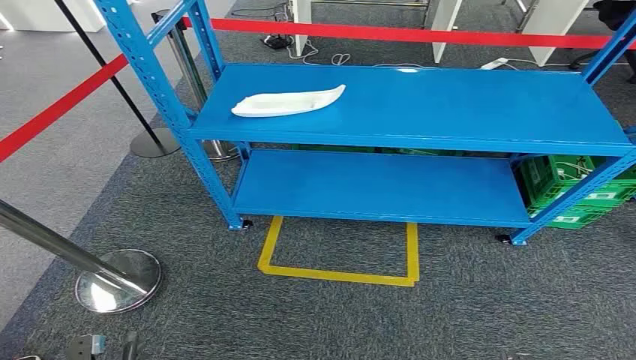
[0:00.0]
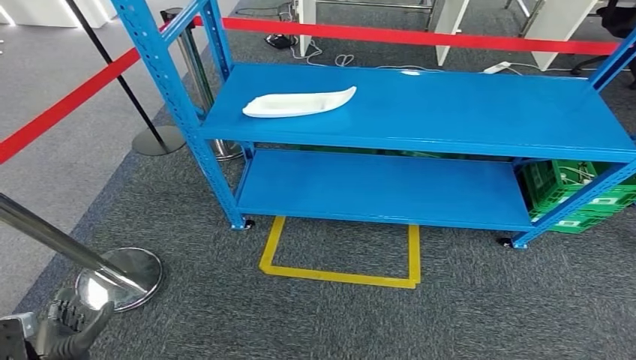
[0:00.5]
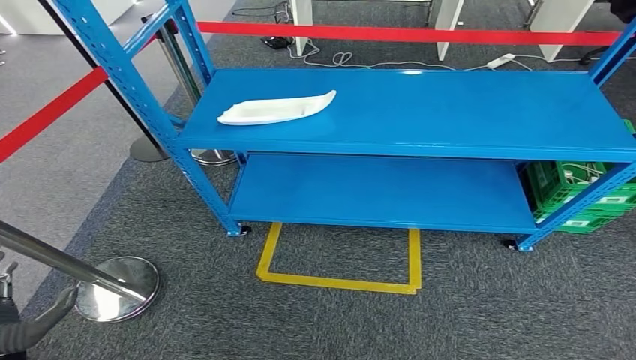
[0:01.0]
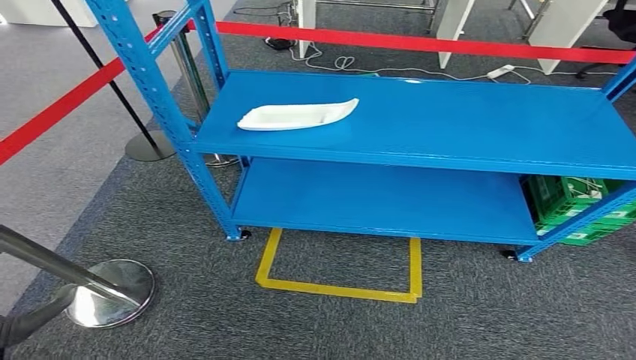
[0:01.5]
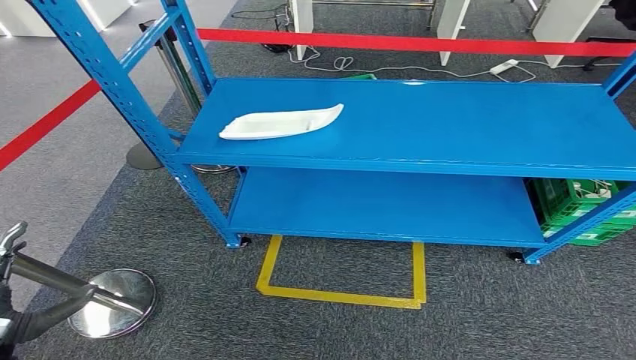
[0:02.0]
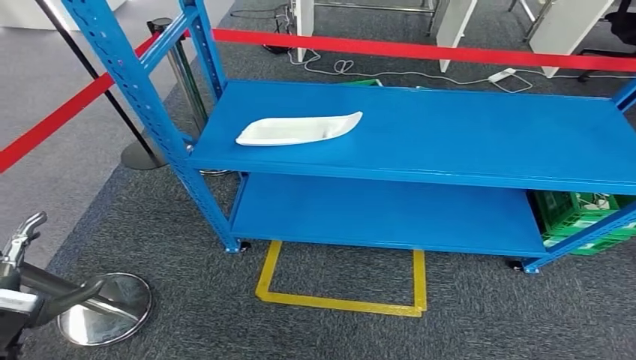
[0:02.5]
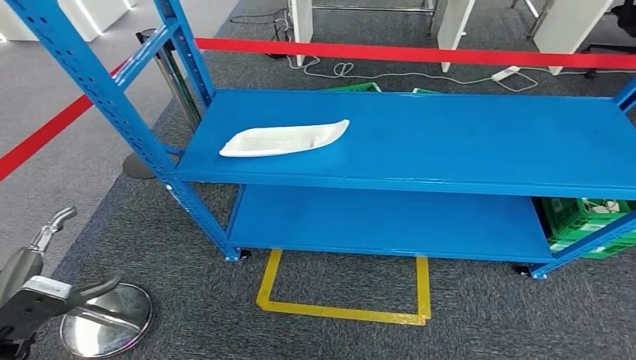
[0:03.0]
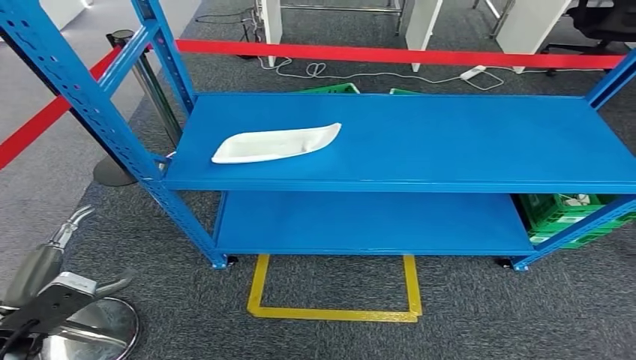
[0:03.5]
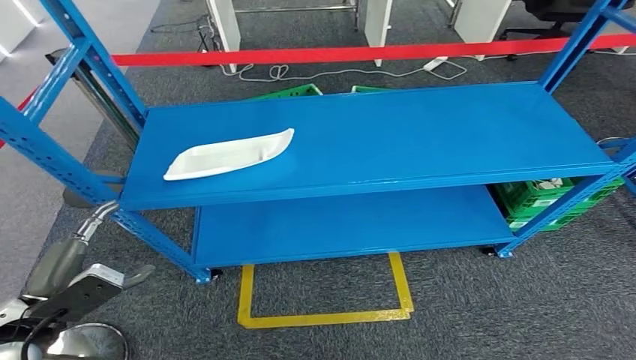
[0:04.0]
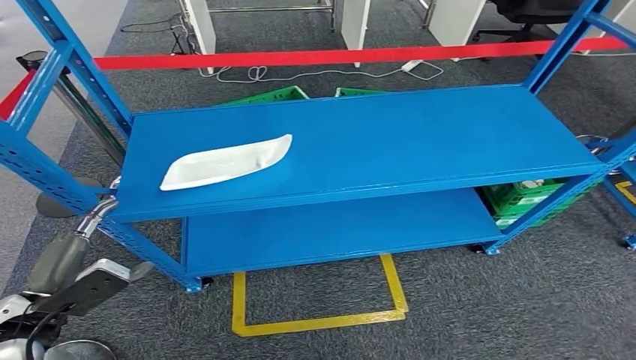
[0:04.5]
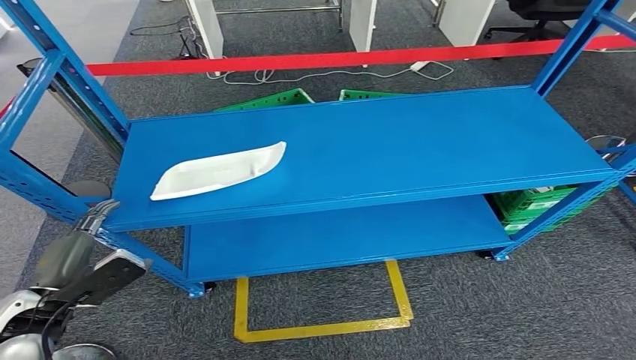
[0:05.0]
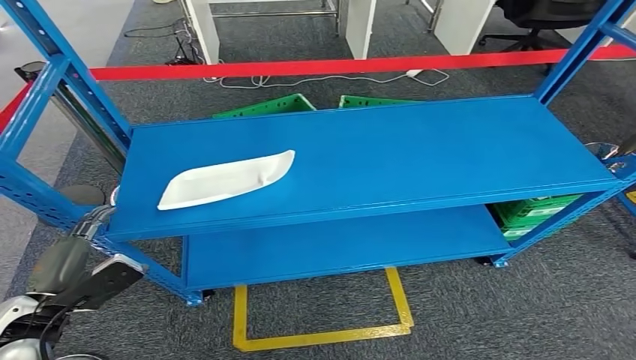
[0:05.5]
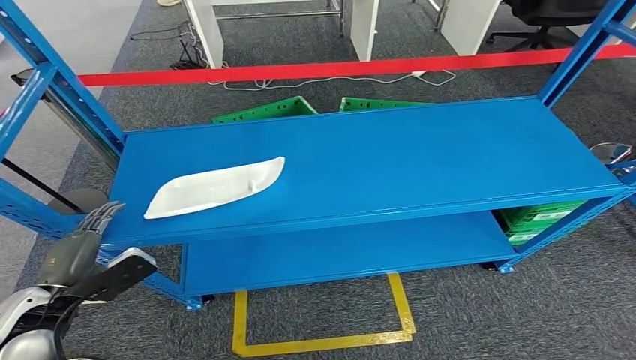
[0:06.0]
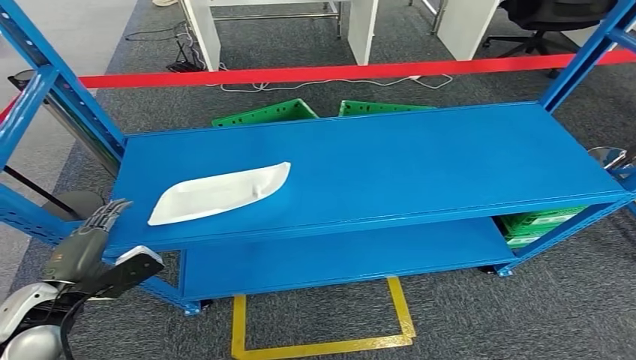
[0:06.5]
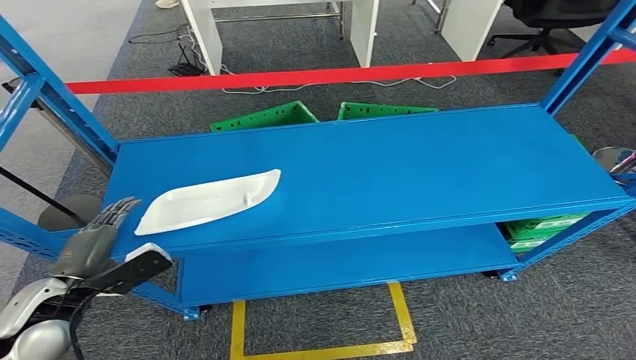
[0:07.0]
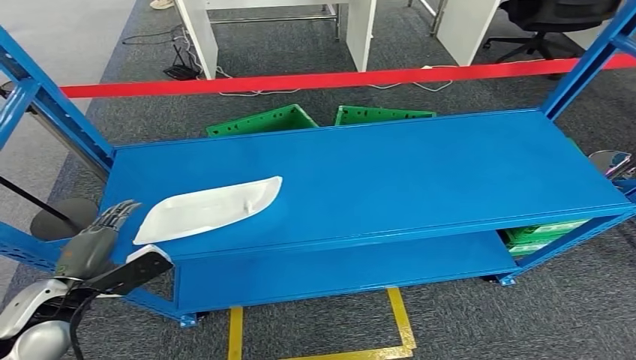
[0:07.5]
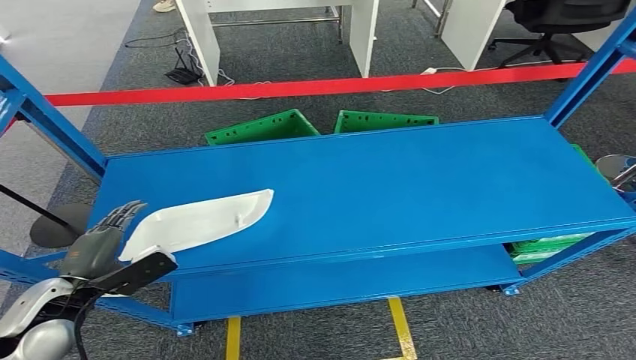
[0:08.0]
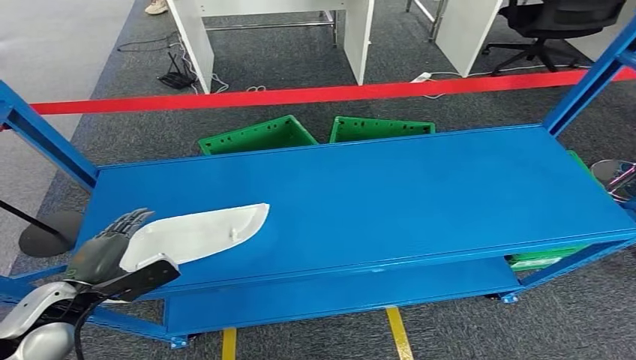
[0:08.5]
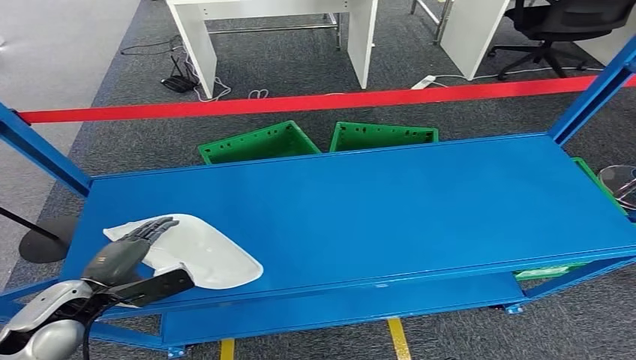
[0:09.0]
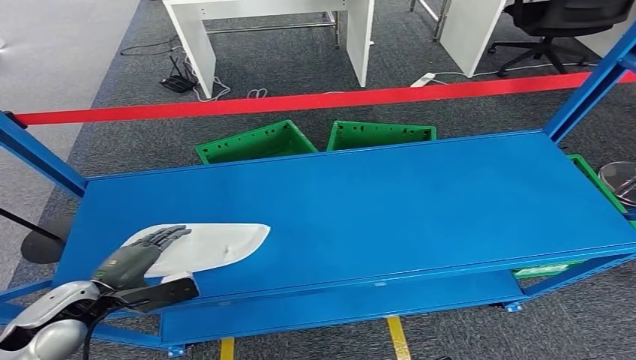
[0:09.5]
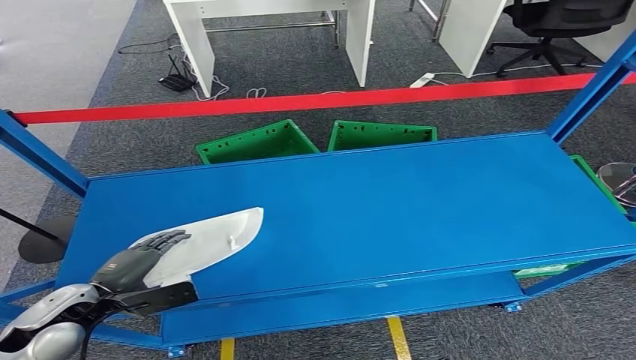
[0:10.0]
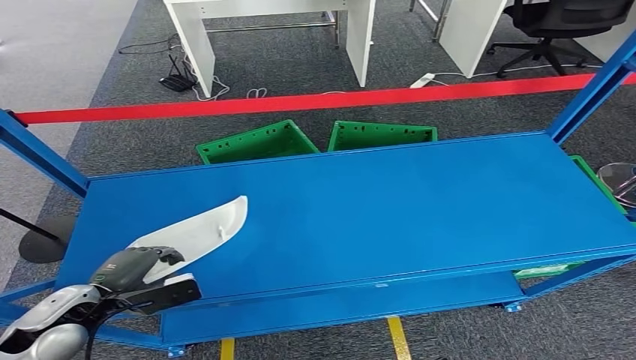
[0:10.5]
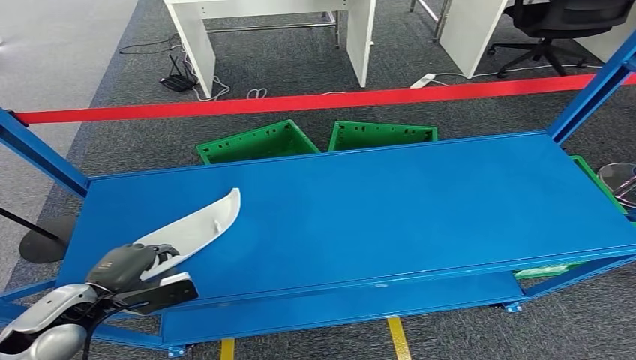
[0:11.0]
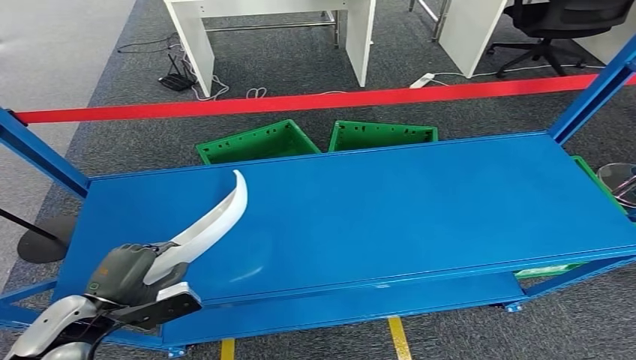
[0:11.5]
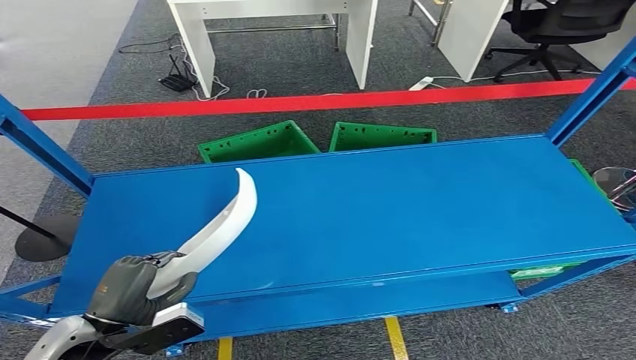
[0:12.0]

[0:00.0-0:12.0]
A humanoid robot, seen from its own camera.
0:10.0 to 0:12.0: The left hand moves to the right and backward, about 10 cm.

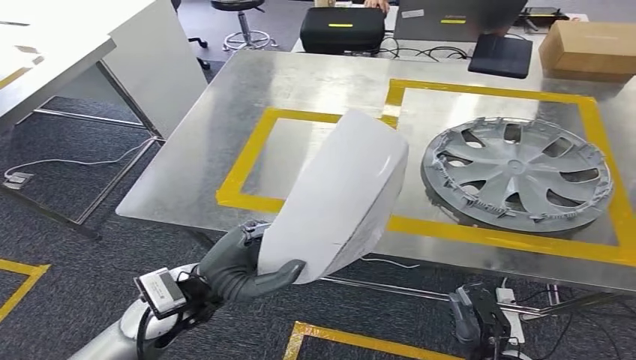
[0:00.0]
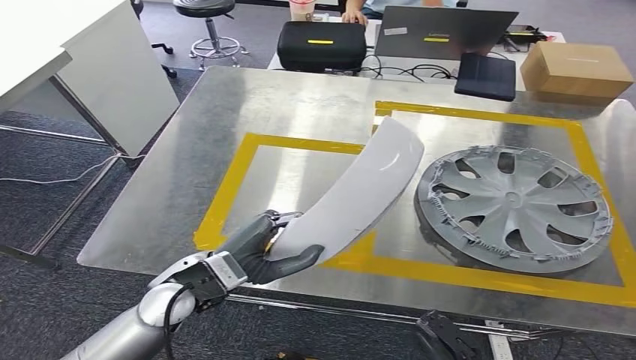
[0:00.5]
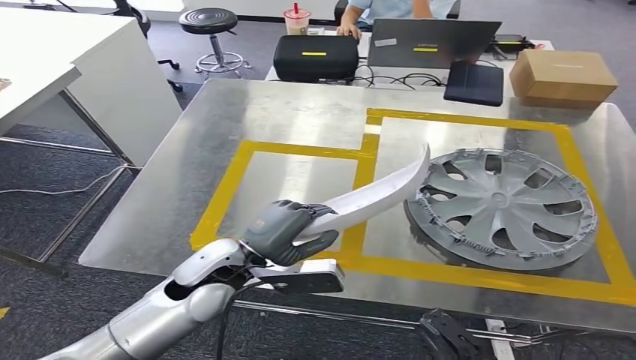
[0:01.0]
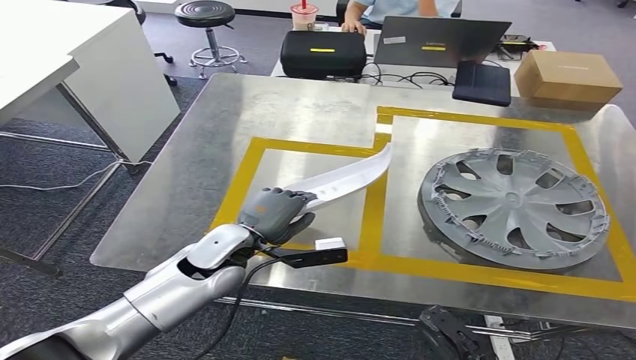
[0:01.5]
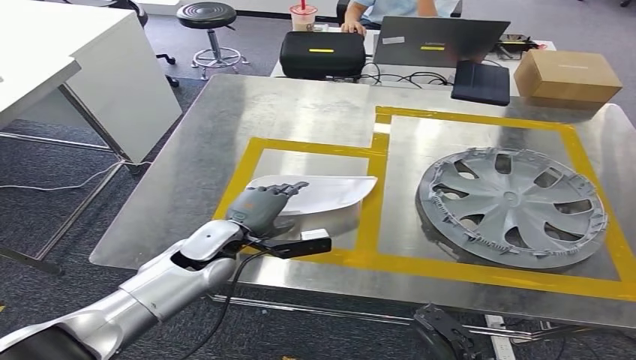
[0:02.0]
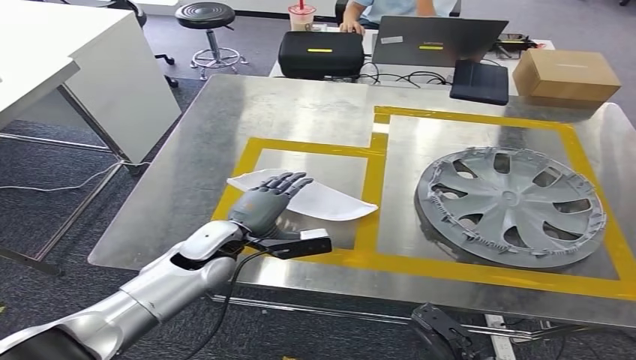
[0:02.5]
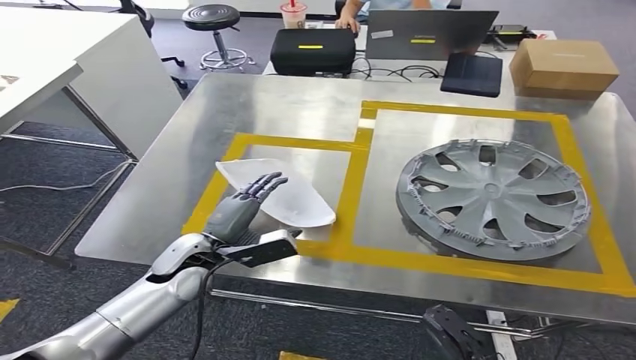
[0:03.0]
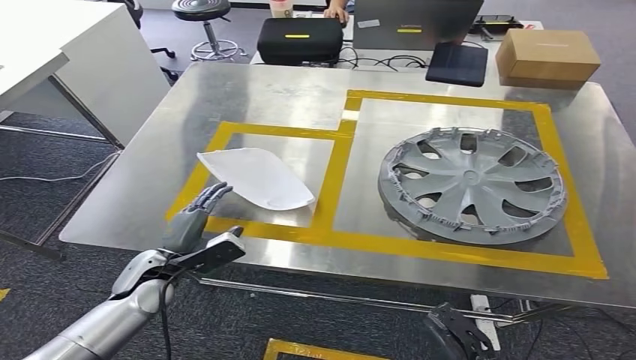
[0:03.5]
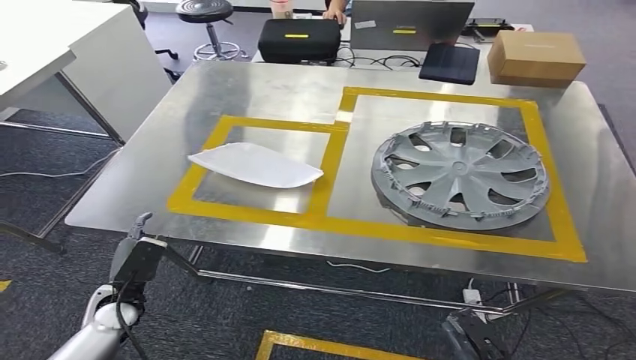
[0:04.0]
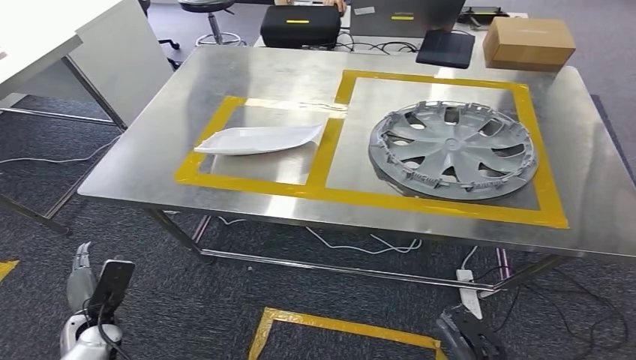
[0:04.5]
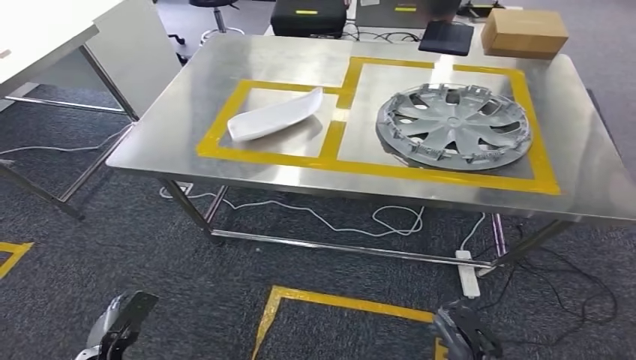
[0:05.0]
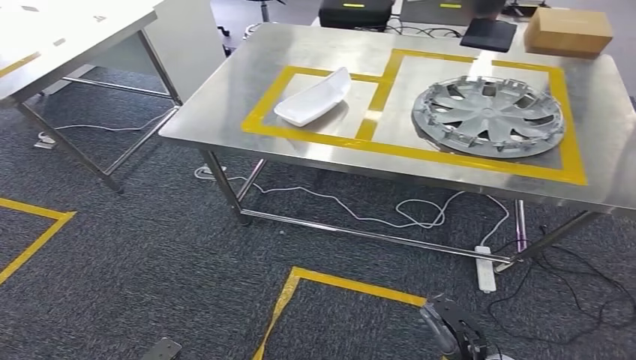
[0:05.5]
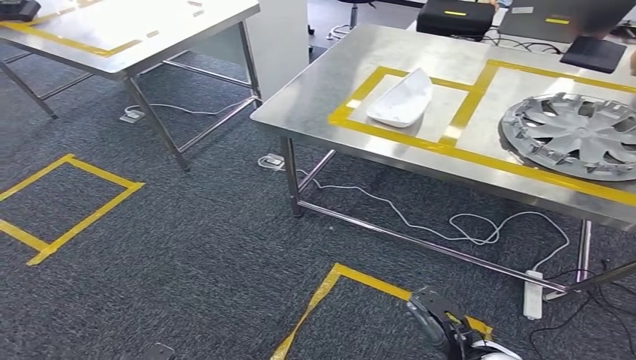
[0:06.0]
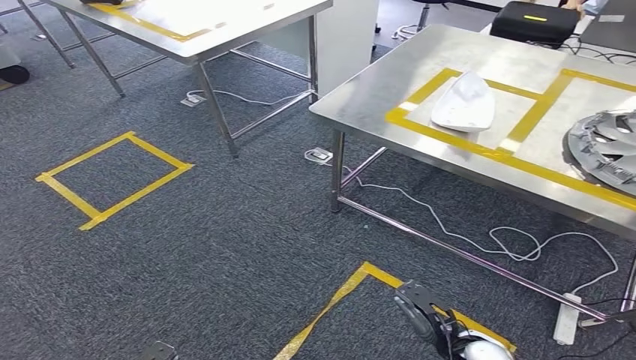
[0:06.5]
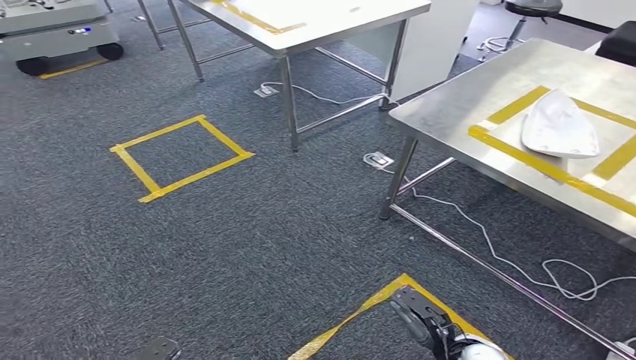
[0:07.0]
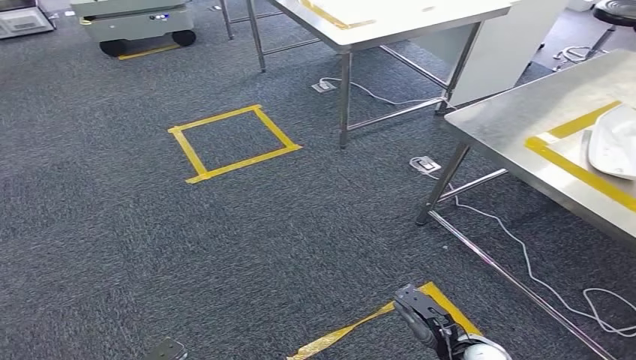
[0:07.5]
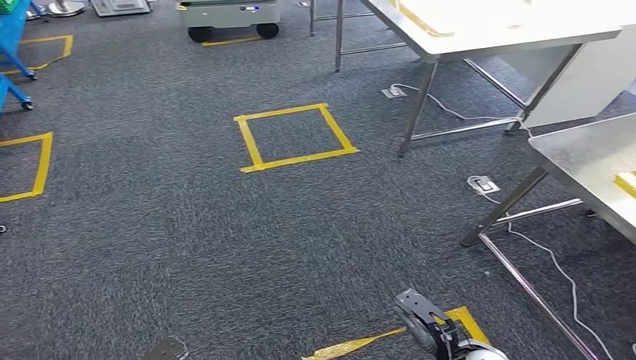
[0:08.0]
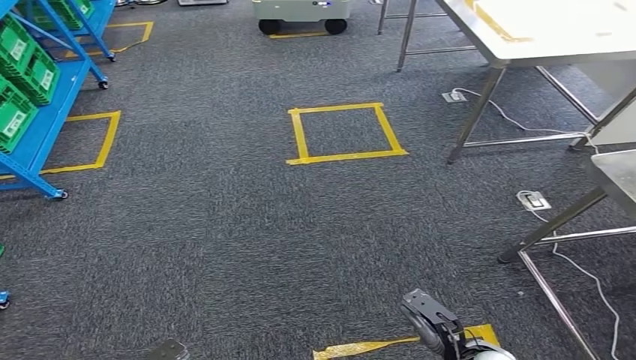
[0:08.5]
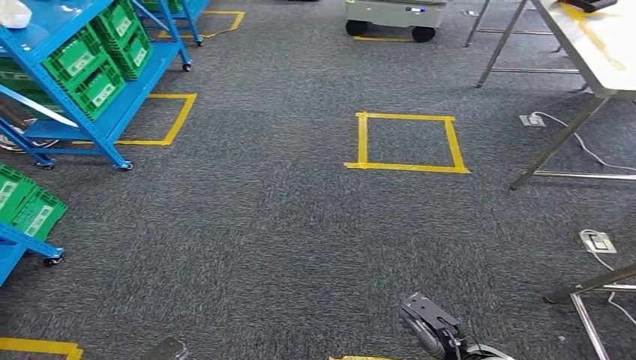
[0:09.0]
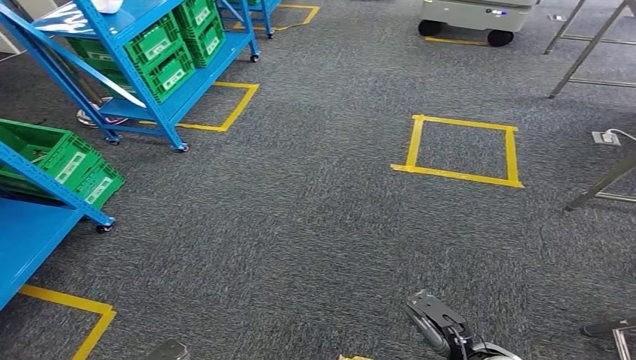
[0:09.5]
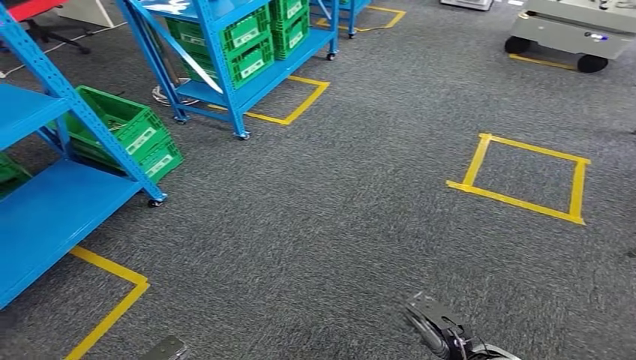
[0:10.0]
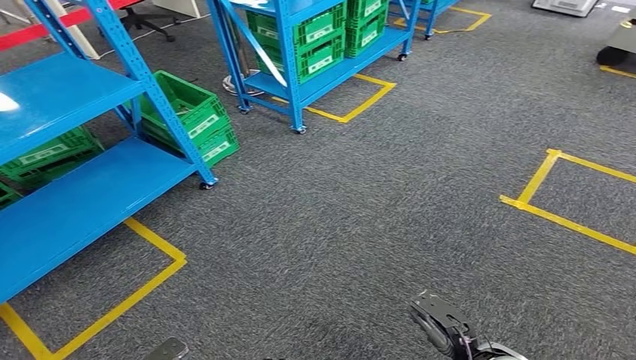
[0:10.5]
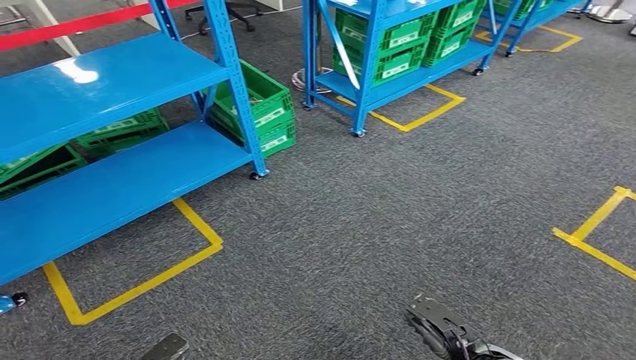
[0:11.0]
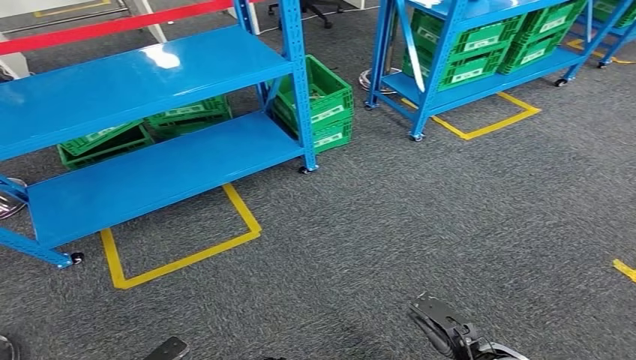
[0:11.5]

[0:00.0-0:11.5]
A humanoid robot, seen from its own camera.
Step, 0:01.5 to 0:04.5: Insert the small component into the corresponding slot on the workbench.
